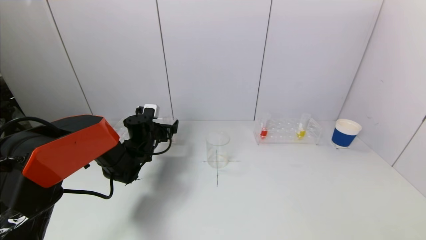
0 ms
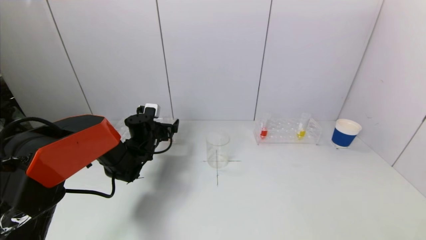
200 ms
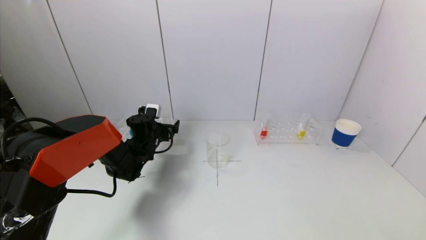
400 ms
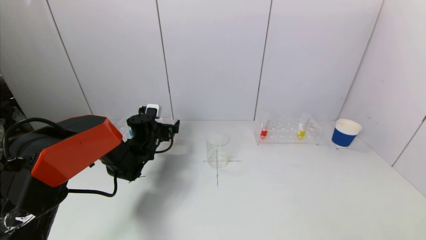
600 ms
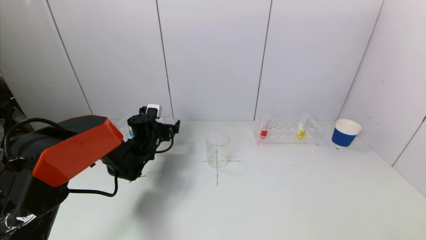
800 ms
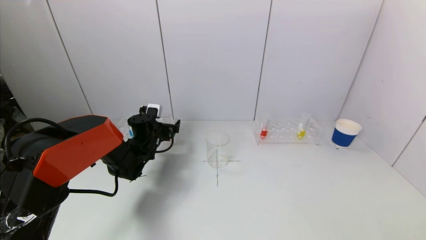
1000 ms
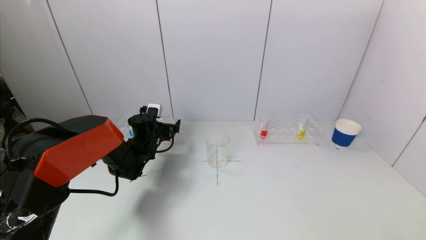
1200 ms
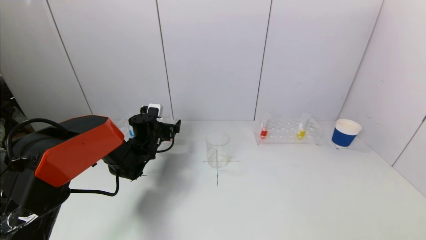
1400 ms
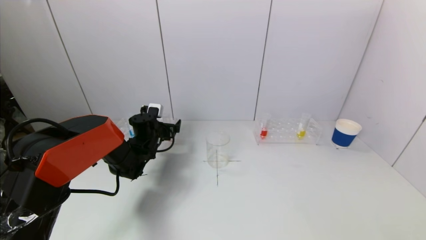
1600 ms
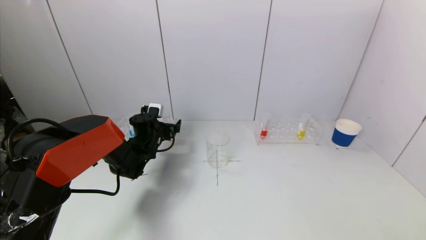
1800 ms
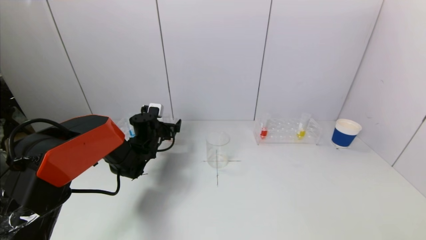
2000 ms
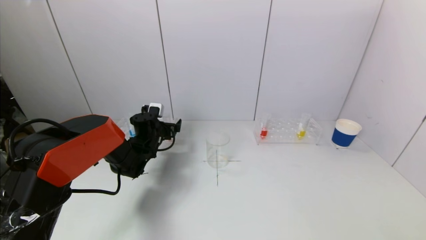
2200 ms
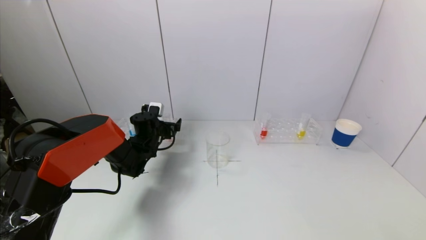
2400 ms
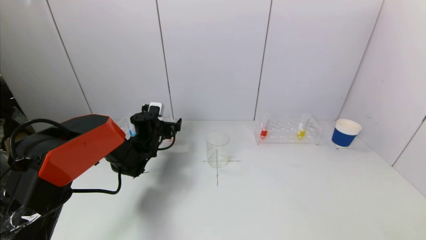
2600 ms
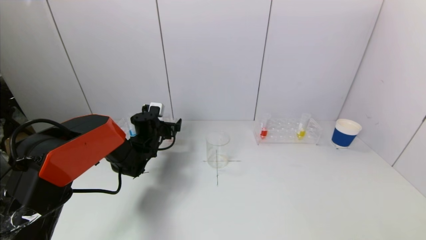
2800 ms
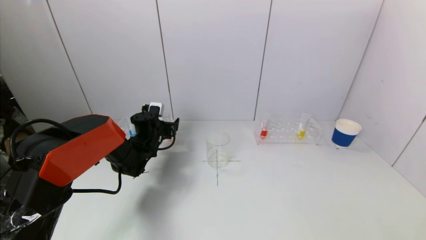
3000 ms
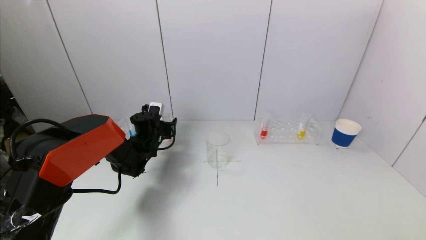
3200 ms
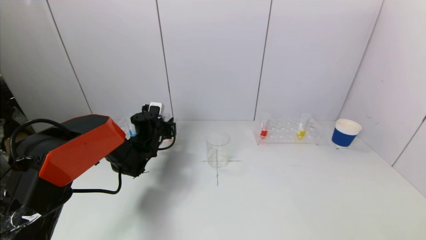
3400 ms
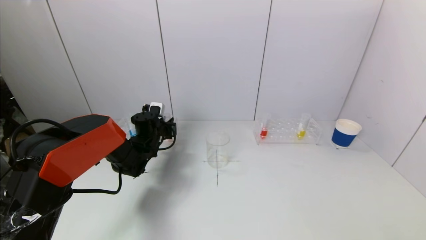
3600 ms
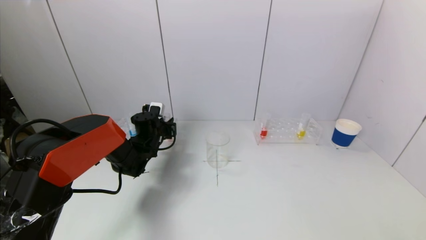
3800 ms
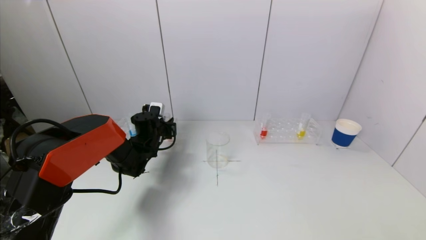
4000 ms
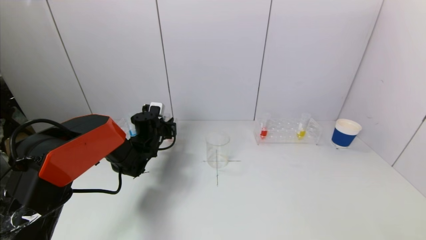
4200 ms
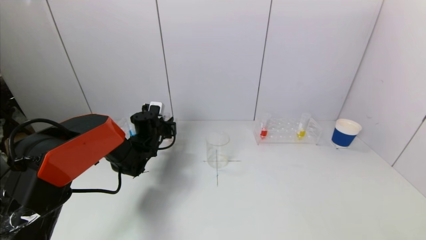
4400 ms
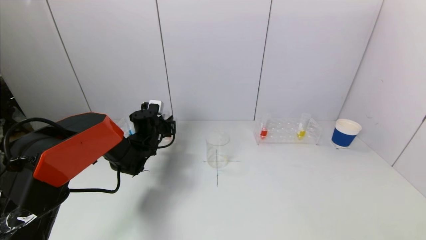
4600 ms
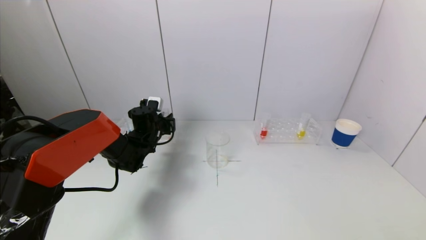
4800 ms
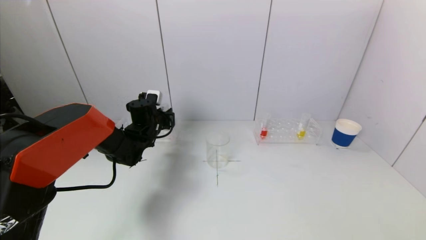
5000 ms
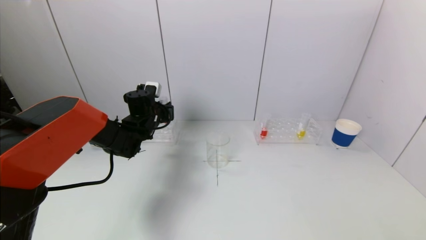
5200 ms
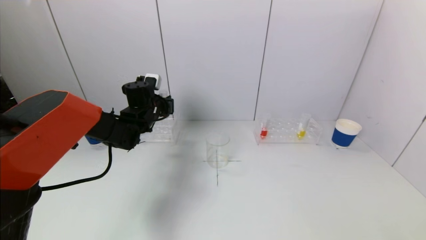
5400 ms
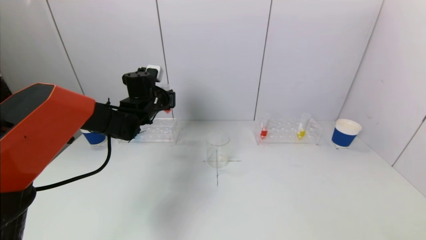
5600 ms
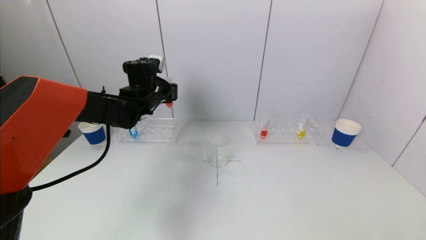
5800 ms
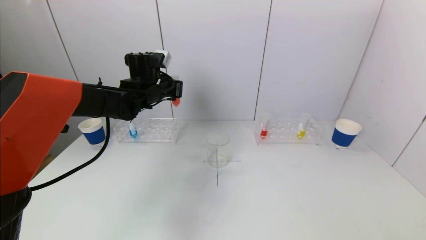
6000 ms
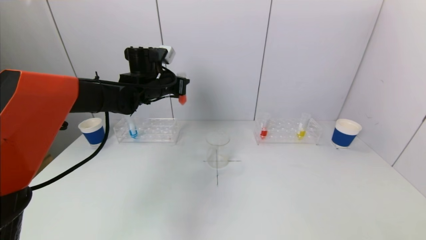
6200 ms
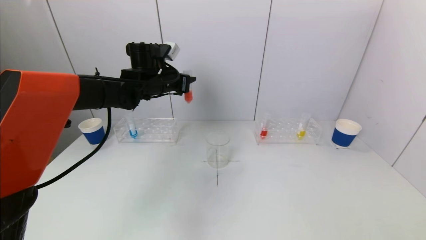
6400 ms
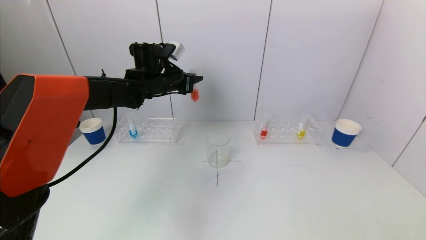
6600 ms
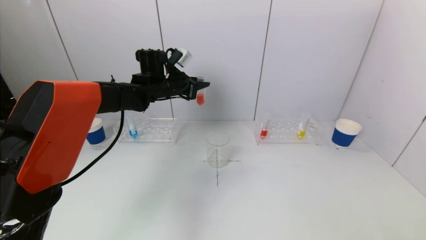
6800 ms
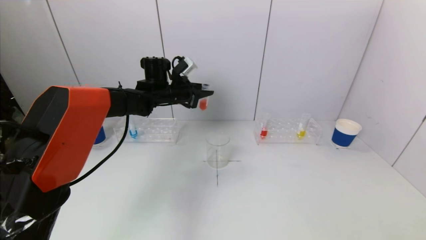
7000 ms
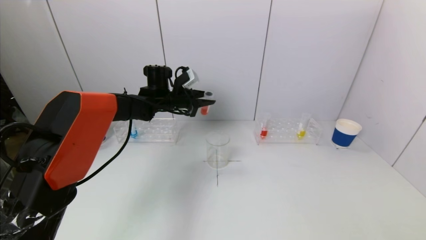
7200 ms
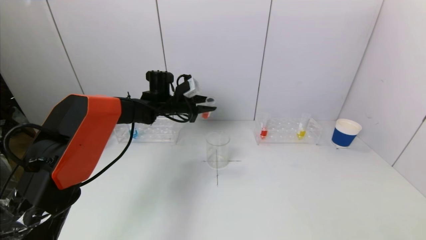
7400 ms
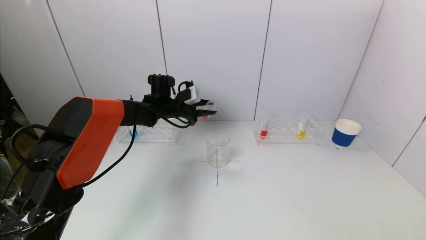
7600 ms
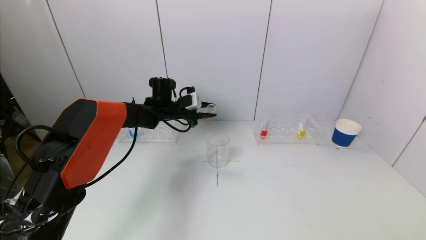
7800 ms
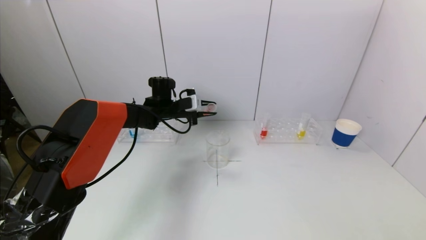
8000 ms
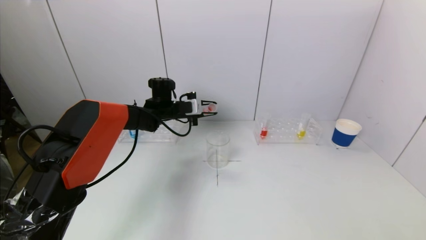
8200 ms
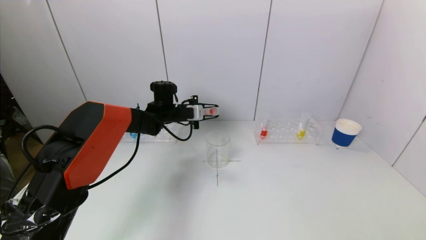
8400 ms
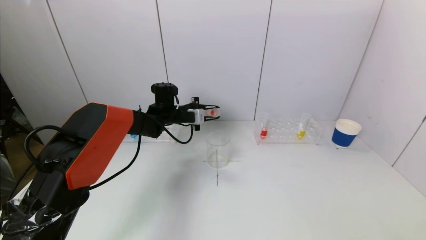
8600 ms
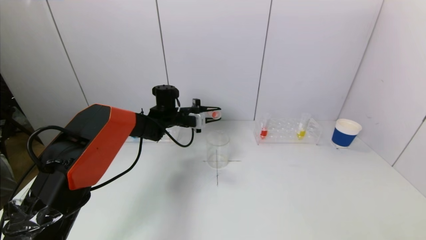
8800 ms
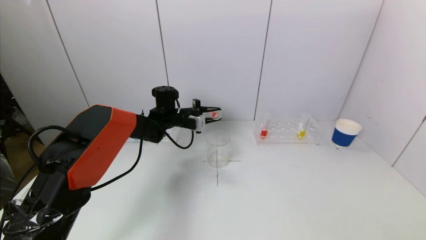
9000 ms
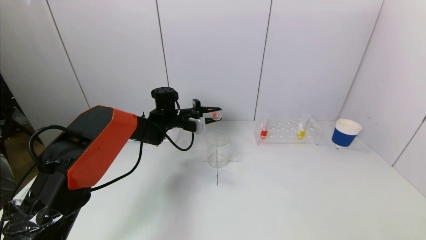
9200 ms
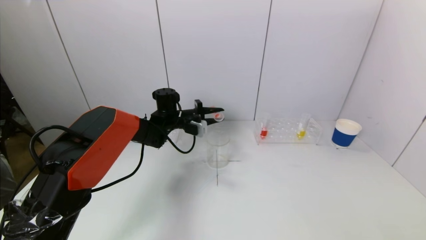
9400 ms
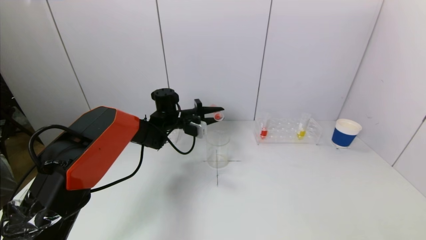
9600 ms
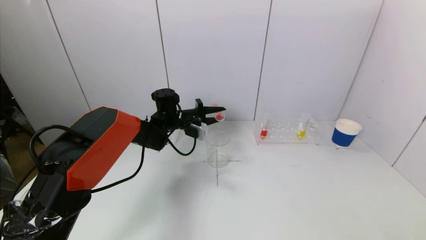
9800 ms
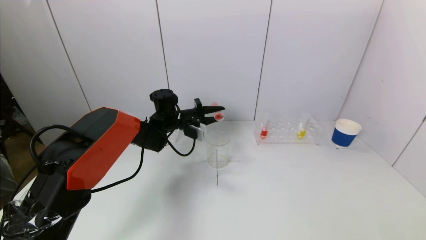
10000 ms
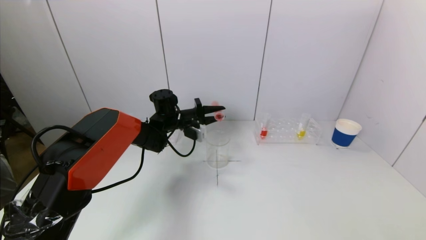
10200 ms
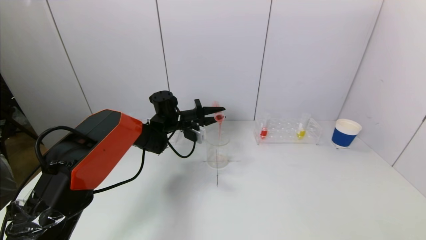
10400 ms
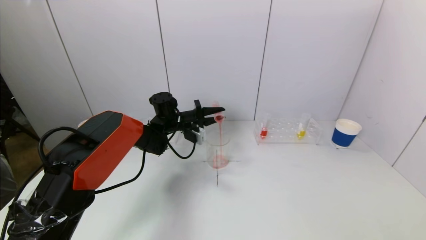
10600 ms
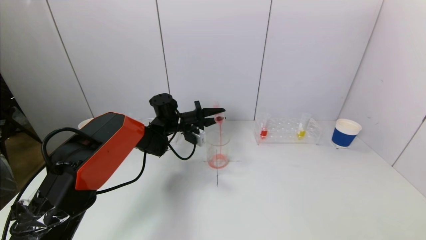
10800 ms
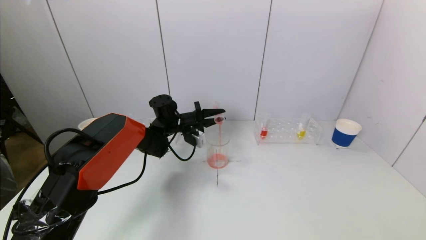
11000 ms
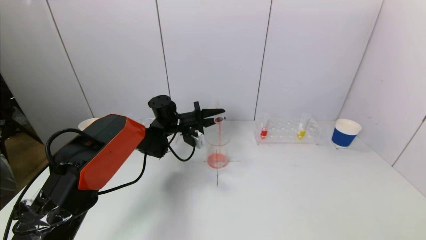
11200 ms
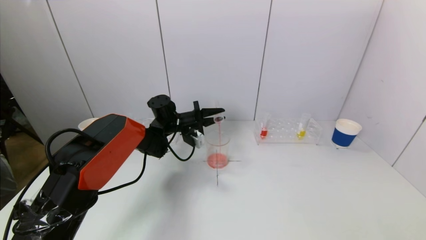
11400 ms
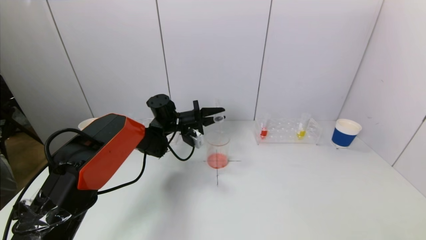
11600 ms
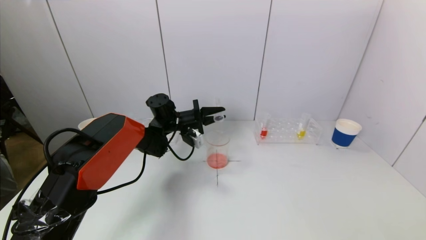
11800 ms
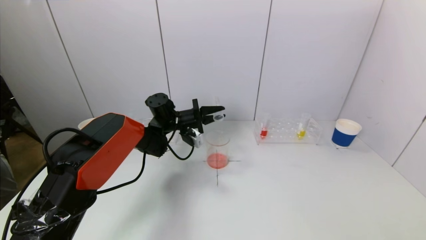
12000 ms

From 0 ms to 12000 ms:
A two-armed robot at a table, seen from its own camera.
Task of the whole recording: pick up a test tube with pigment on left test tube rack and a test tube with pigment on right test tube rack by grippers and pour them into the beaker.
Step, from 0 ms to 3600 ms: Grasp the red reagent with the left gripper.
From 0 ms to 1600 ms: The grippers make only small movements.
From 1600 ms to 3000 ms: Both grippers stay put.
From 4400 ms to 6000 ms: The left gripper heads upward, covering roughly 15 cm.
From 6000 ms to 7600 ms: The left gripper shifts some 10 cm downward.
From 9000 ms to 10400 ms: The grippers move only a little.
From 10400 ms to 12000 ms: The grippers make only small movements.

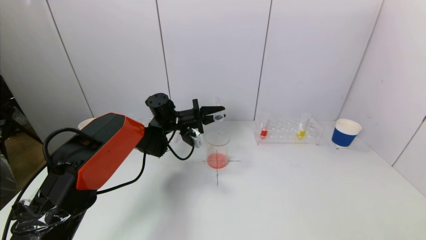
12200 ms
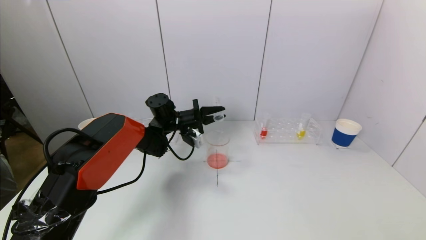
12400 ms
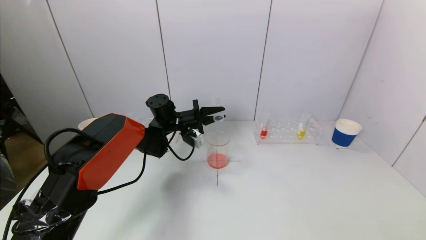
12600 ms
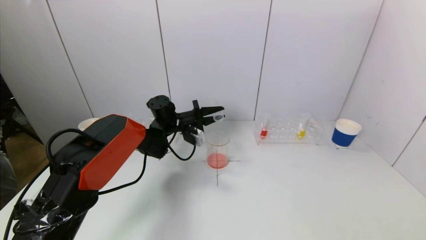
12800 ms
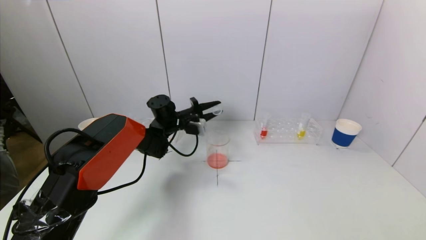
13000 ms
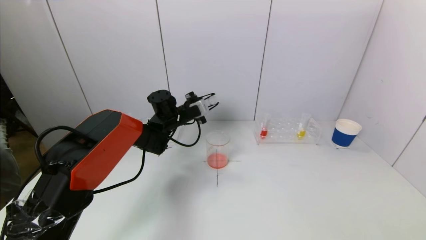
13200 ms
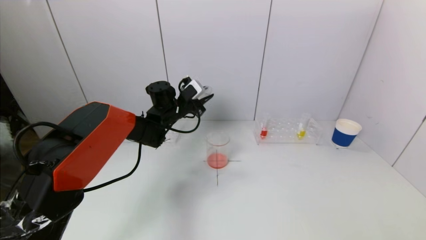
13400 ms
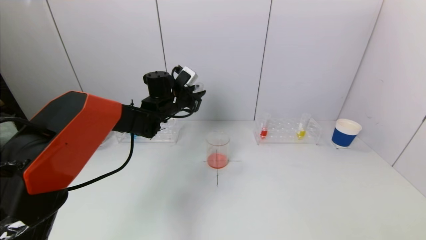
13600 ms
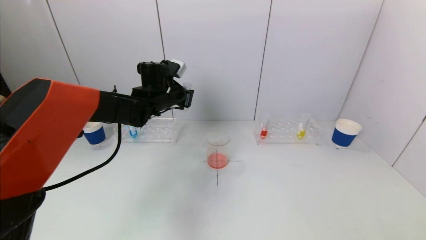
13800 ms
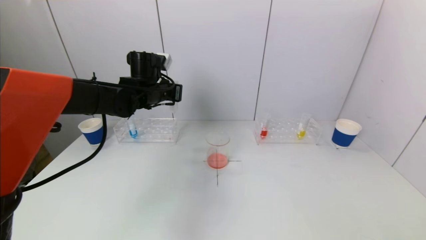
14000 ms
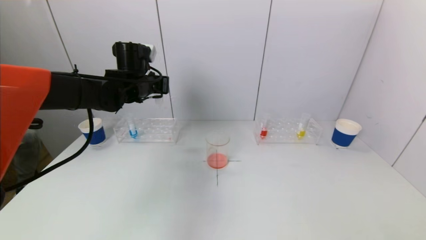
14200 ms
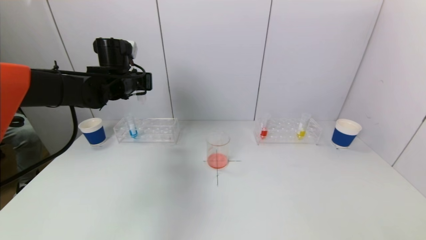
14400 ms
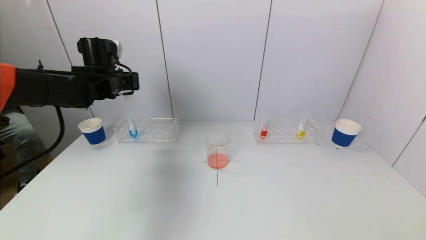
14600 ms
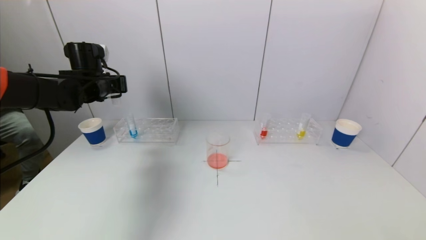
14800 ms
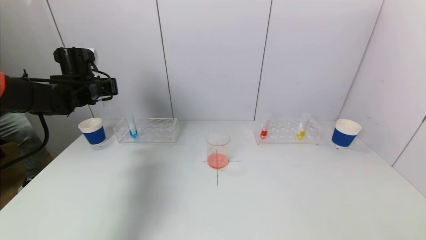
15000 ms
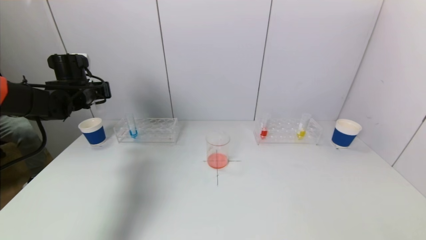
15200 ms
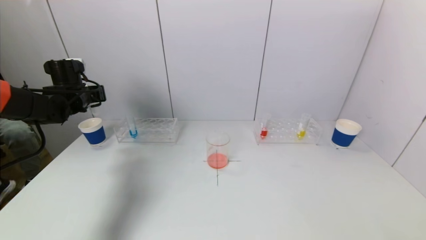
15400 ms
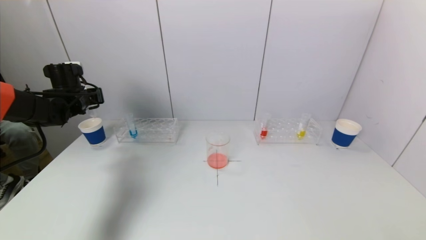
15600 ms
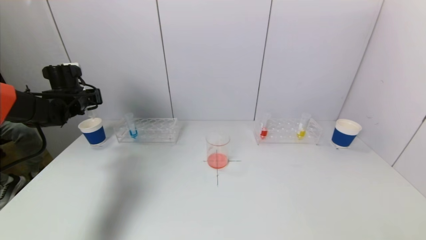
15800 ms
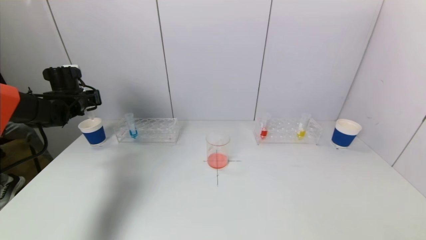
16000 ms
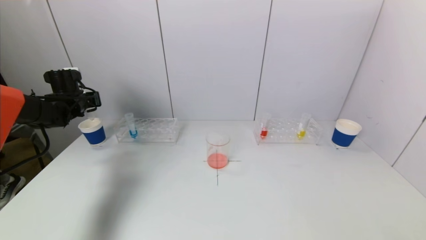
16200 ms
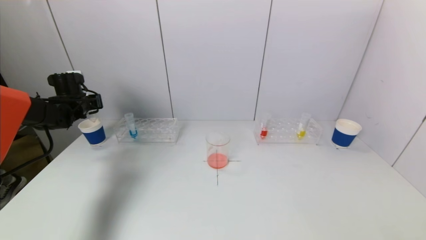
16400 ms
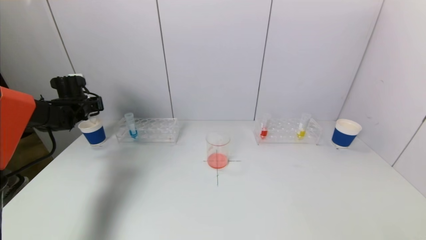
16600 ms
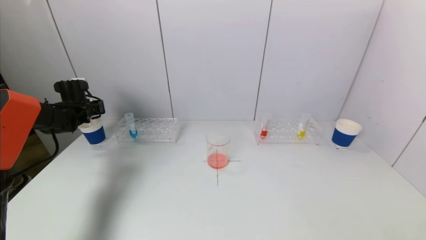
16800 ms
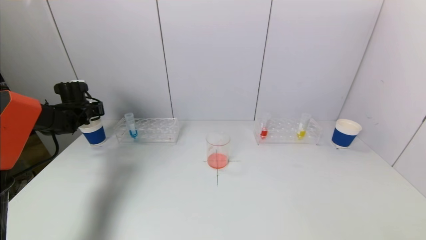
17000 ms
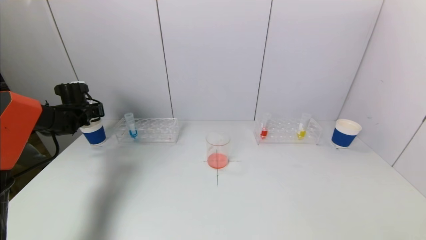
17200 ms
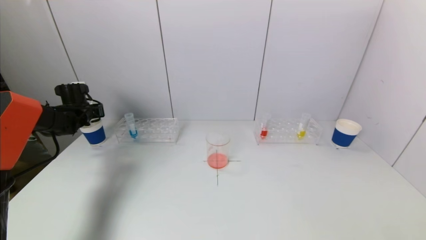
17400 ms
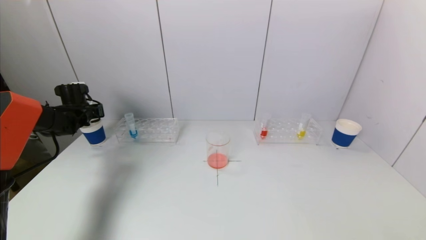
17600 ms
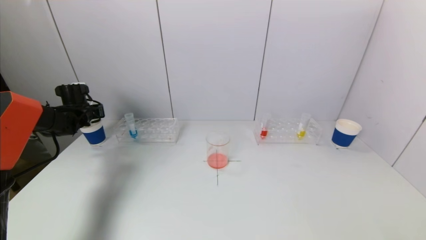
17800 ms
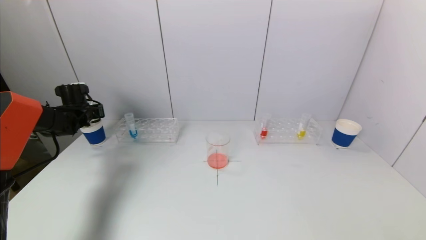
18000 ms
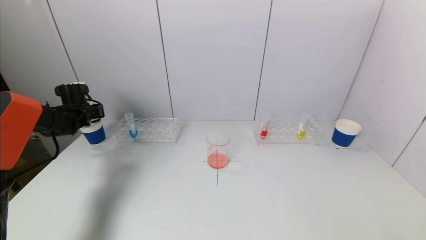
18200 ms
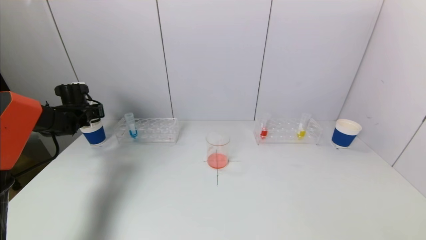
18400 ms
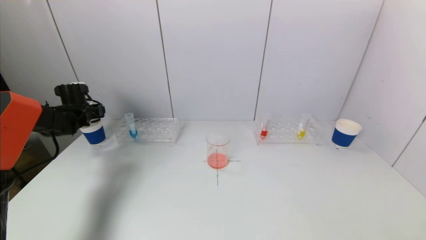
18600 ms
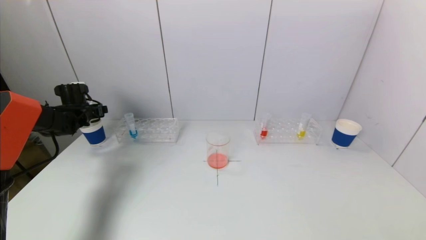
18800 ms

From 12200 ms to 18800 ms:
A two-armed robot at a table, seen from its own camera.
Task of the whole recording: pick up a test tube with pigment on left test tube rack and a test tube with pigment on right test tube rack by grippers and pour them into the beaker.
Step, from 12600 ms to 18800 ms: Place the test tube into the paper cup with the left gripper.
From 12200 ms to 13800 ms: The left gripper is displaced upward by about 10 cm.
From 13800 ms to 15400 ms: The left gripper shifts roughly 20 cm to the left.
From 15400 ms to 17200 ms: The left gripper goes approximately 10 cm downward and to the left.
